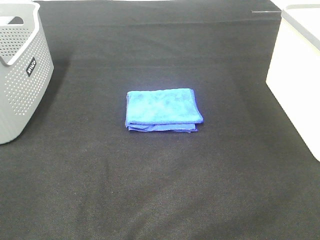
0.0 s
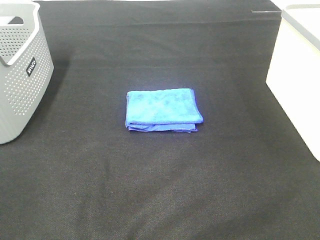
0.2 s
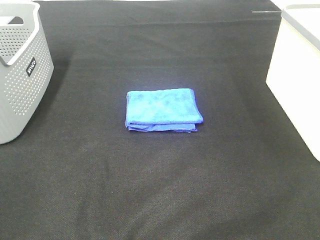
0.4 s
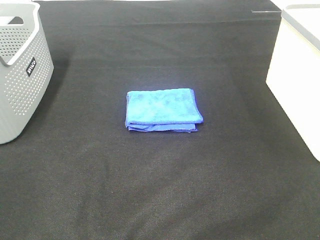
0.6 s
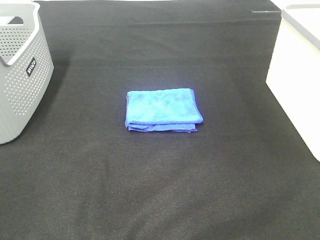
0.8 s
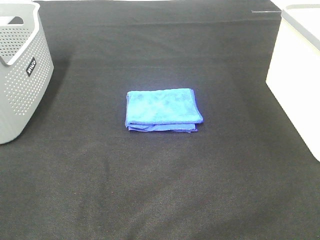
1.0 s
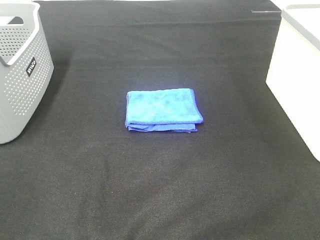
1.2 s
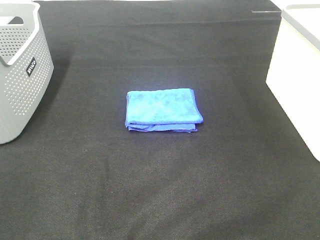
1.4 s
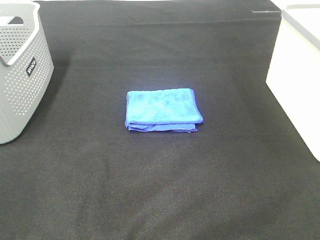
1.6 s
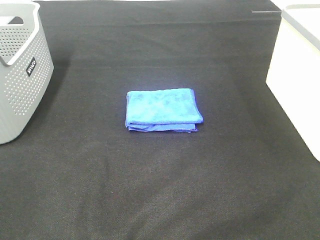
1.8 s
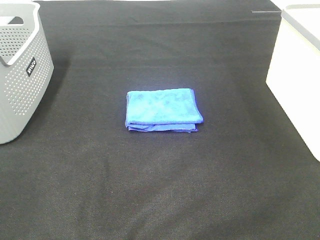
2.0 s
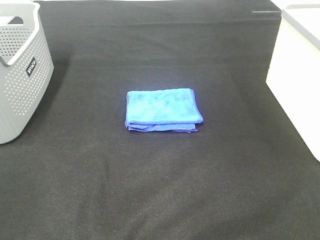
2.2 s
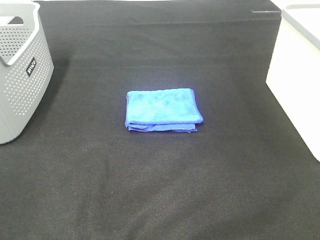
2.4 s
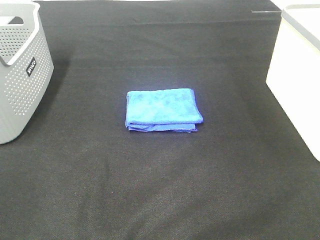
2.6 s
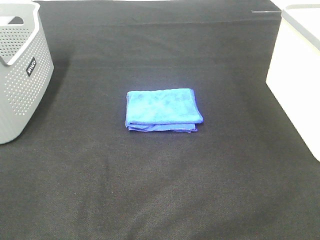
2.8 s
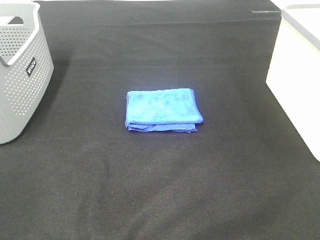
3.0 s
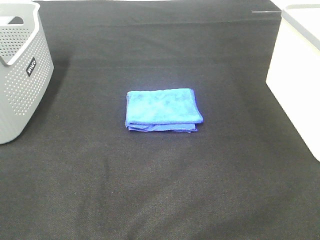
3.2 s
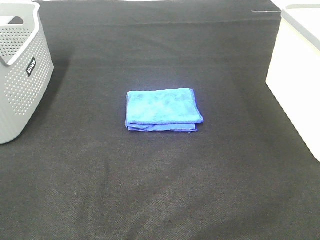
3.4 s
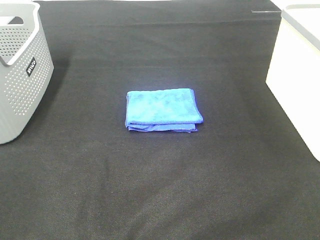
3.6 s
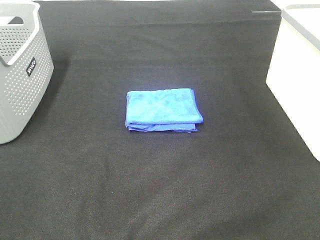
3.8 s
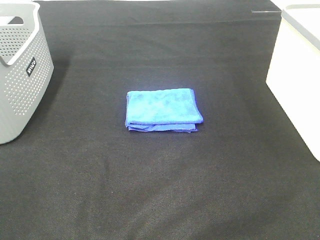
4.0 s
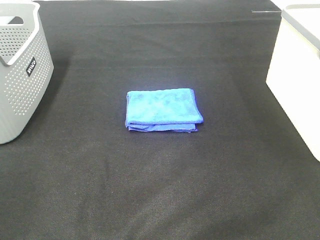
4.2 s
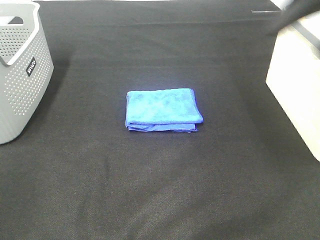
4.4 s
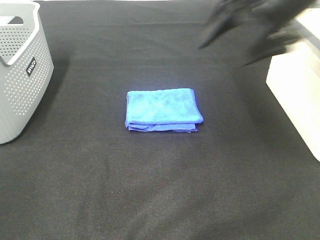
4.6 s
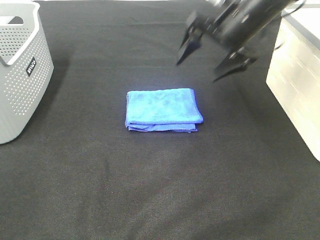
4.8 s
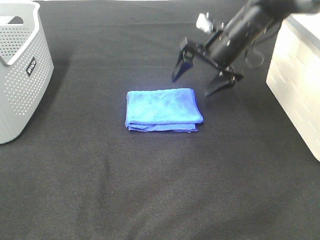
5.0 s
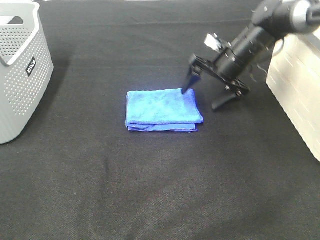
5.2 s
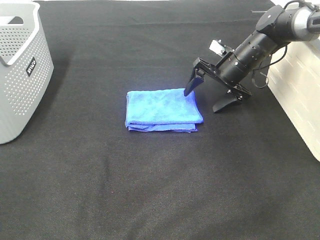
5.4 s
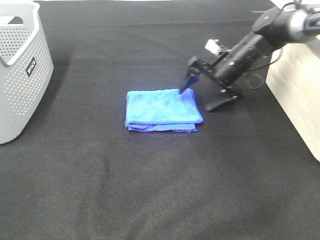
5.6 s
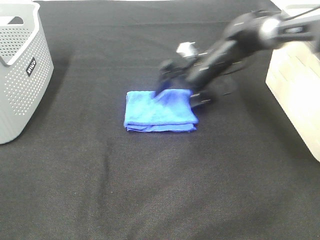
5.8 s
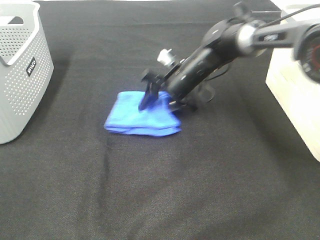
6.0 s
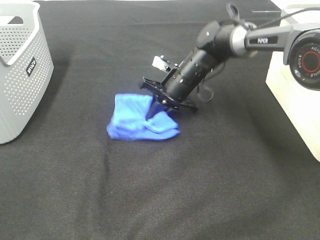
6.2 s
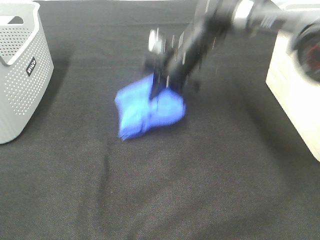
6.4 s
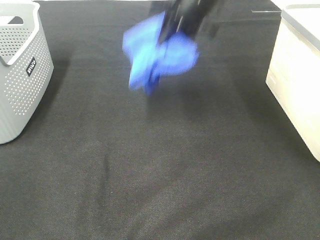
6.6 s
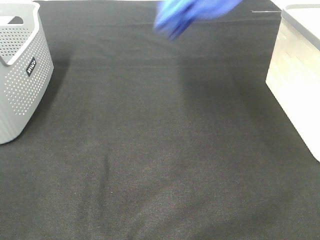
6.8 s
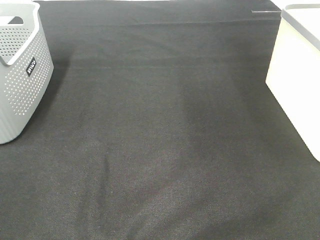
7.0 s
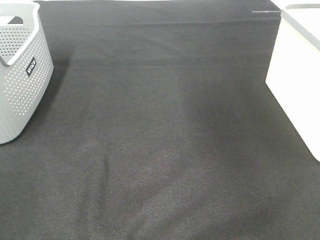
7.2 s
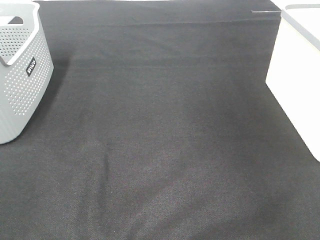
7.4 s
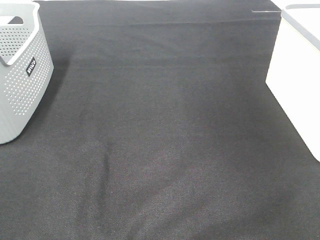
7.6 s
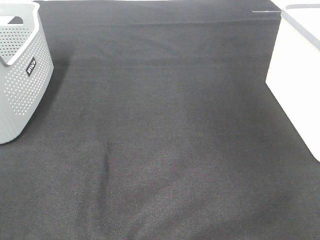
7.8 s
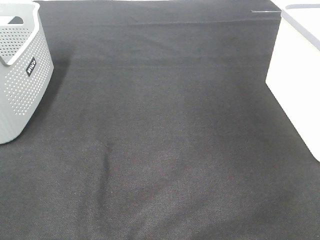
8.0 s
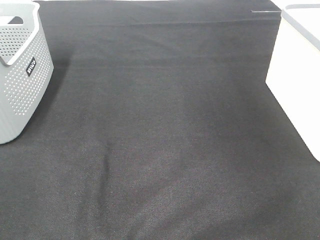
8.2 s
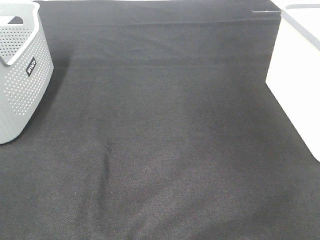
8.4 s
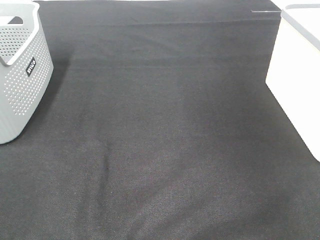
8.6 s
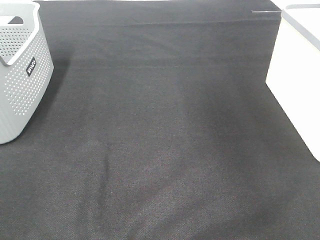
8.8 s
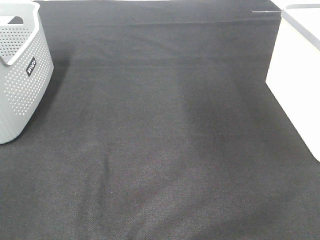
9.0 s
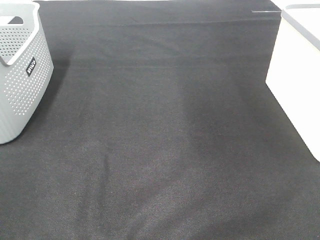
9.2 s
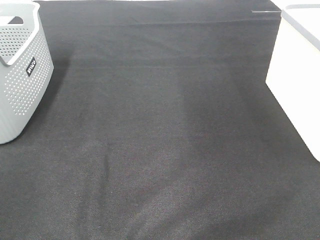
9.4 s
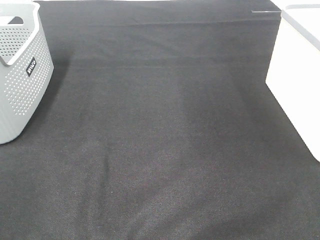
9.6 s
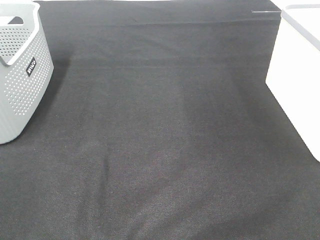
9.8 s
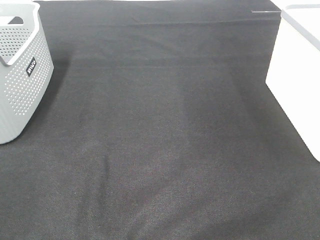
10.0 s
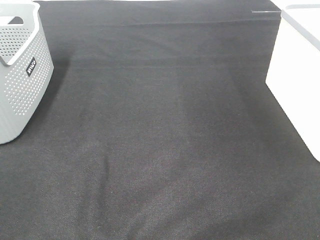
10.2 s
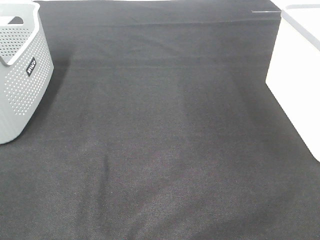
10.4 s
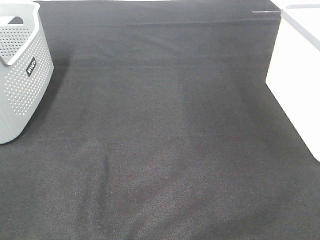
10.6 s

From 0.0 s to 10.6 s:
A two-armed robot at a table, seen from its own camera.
Step, from 0.0 s to 6.0 s: Right hand: grab the folded blue towel.
Step, from 6.2 s to 8.2 s: Right hand: place the blue towel in right basket.
From 0.0 s to 3.0 s: Neither gripper changes place.
From 3.0 s to 4.6 s: The right gripper goes roughly 35 cm forward.
From 4.6 s to 6.0 s: The right gripper is displaced downward, to the left and forward by some 25 cm, and closes its fingers.
From 6.0 s to 7.6 s: The right gripper shifts approximately 50 cm to the right and upward, and closes.

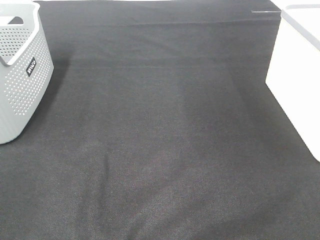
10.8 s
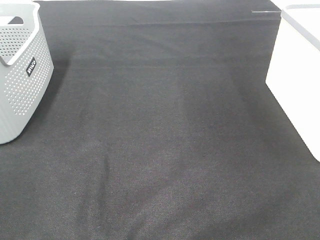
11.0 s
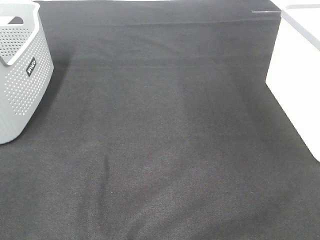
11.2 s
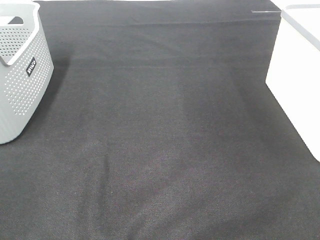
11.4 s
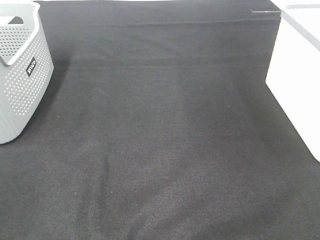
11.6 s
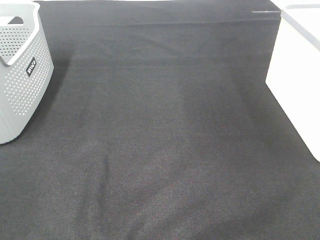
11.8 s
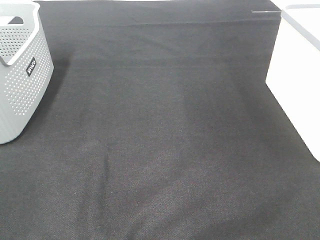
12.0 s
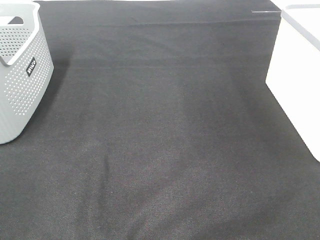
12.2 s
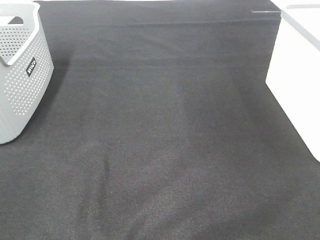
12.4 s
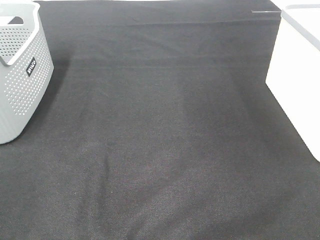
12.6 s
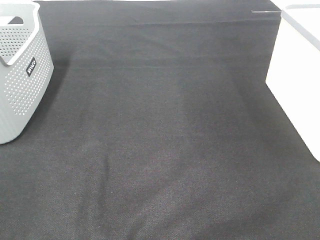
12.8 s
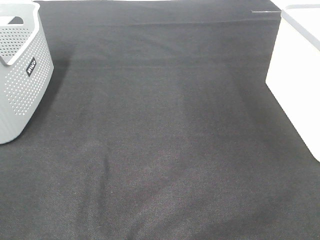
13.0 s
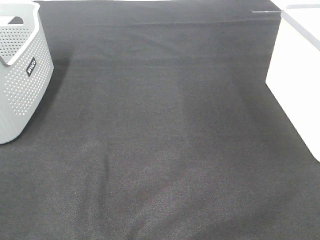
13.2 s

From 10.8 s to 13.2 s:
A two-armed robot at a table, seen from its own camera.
From 12.0 s to 13.2 s: Both grippers stay about where they are.

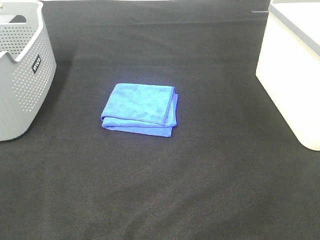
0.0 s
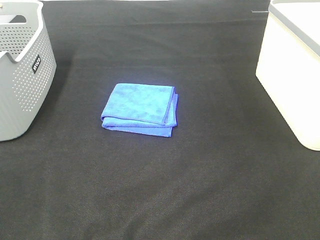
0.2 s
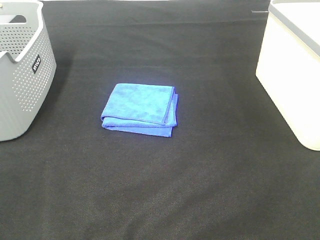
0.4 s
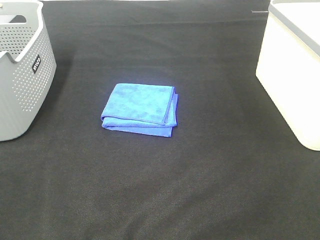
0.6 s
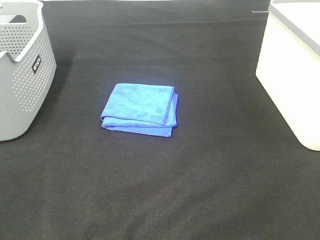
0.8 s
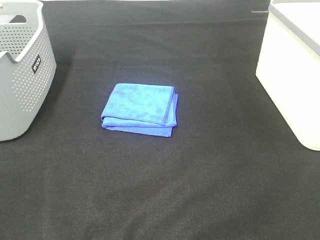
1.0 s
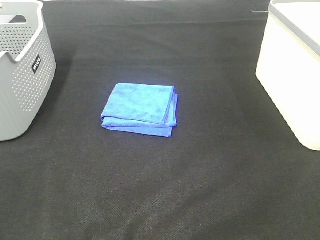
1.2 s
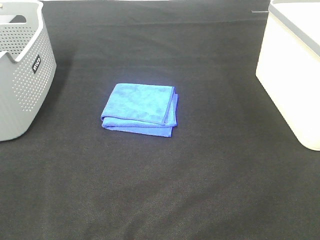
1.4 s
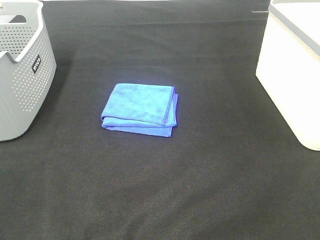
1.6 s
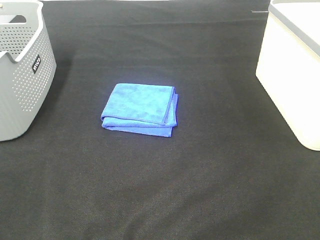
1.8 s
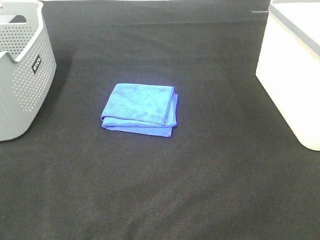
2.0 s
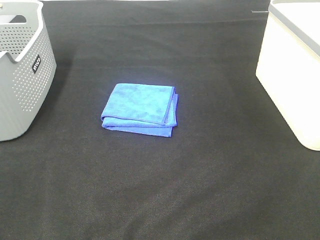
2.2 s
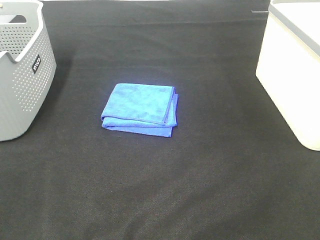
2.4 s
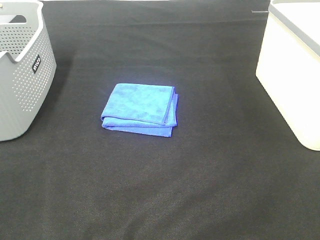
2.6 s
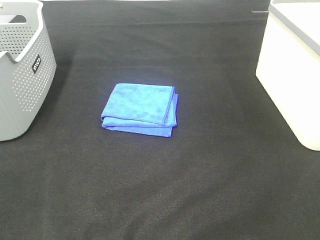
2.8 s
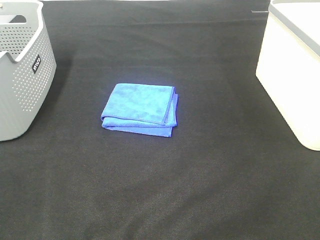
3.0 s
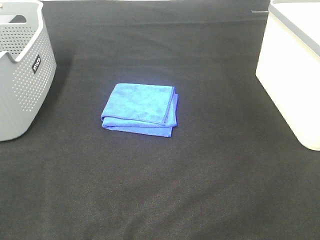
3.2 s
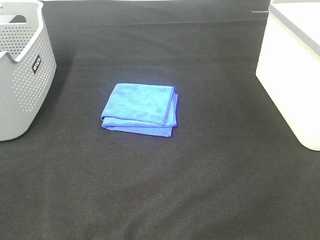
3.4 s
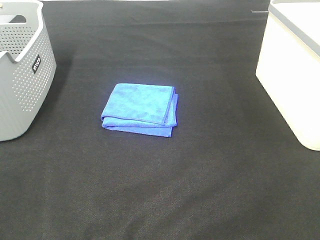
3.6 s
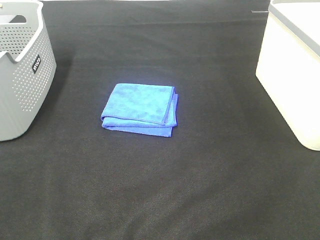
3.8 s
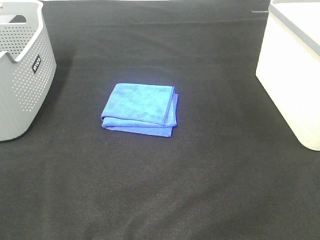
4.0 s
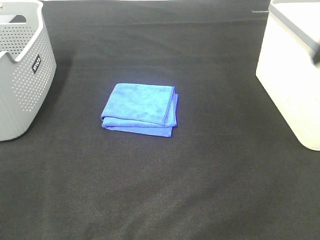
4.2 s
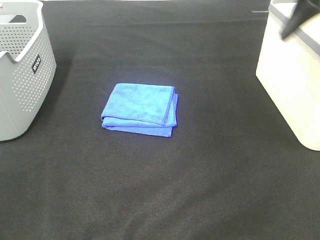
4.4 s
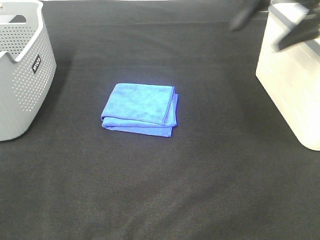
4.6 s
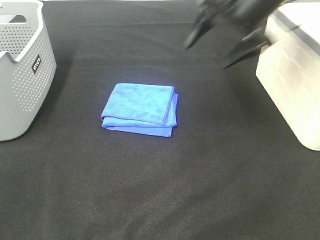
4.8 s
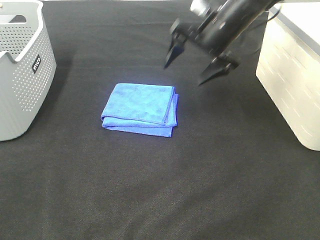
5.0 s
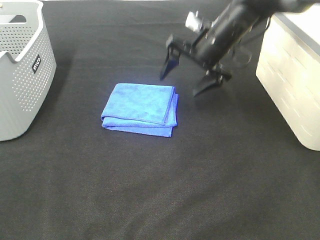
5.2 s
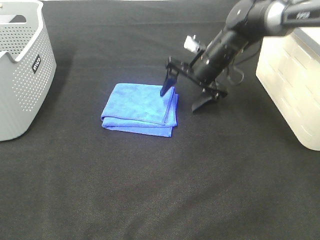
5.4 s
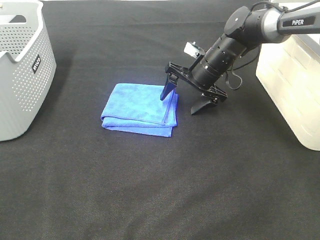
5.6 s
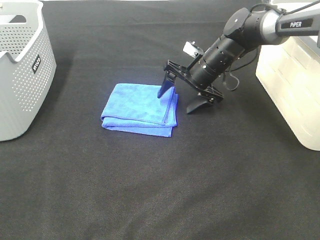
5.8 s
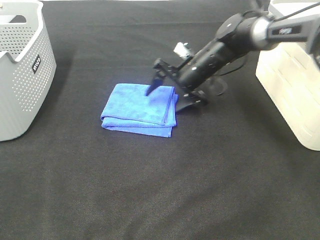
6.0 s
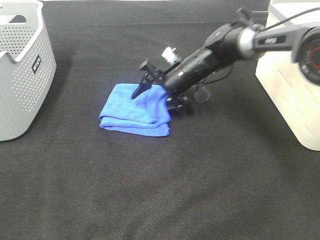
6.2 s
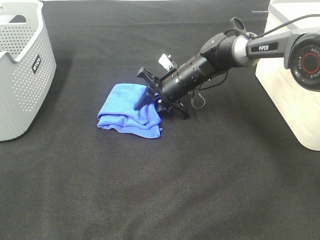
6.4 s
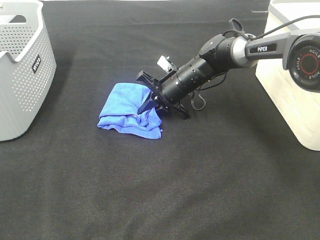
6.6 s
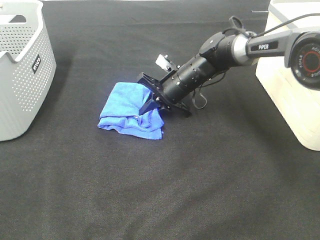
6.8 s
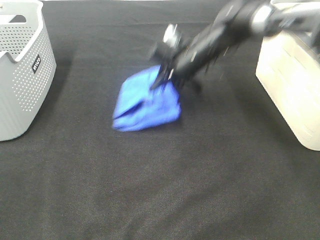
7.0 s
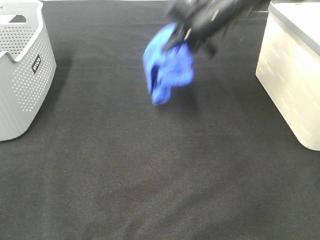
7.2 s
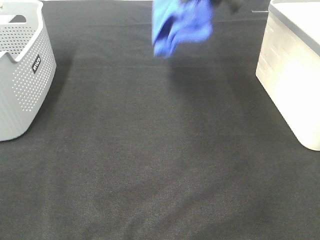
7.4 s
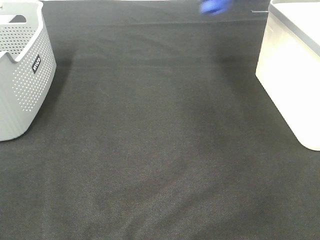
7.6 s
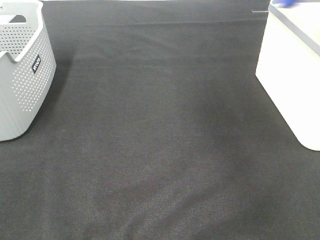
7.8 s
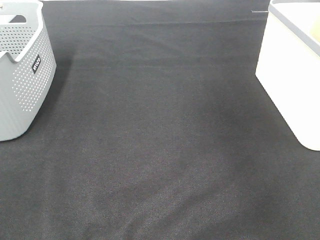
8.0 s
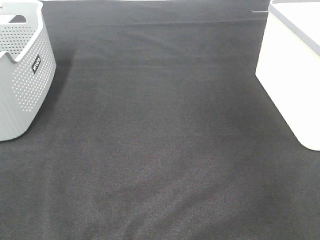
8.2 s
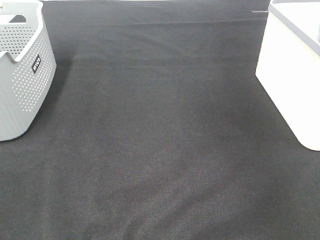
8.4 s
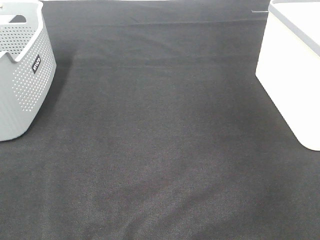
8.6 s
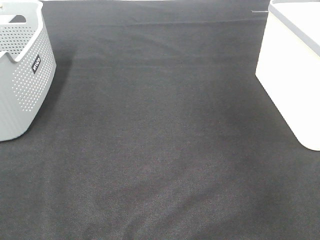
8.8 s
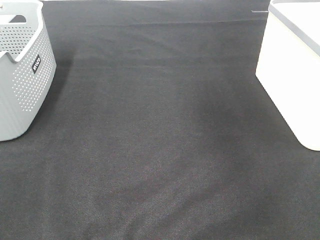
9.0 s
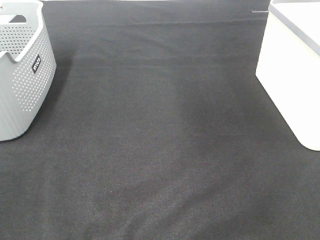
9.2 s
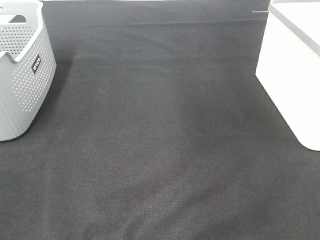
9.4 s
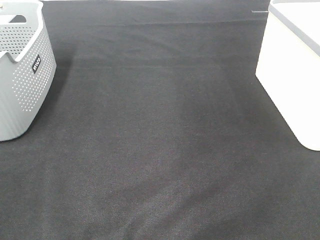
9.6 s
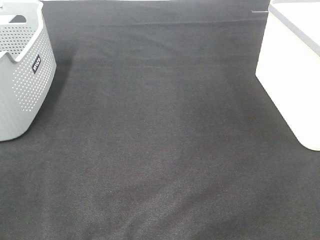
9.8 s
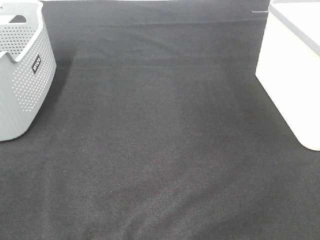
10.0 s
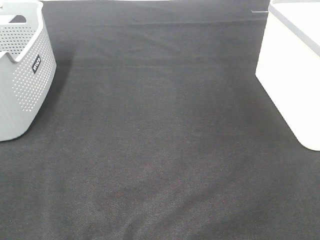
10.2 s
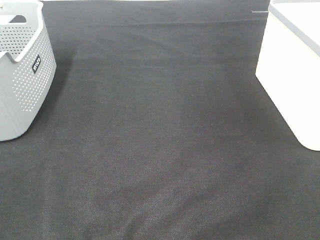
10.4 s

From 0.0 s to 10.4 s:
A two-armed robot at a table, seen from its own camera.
Step, from 0.0 s to 6.6 s: Right hand: grab the folded blue towel.
Step, from 6.8 s to 8.4 s: Right hand: place the blue towel in right basket.
From 0.0 s to 3.0 s: Both grippers stay about where they are.
From 3.0 s to 4.4 s: The right gripper heads forward, covering some 35 cm.
From 4.4 s to 6.0 s: The right gripper travels downward, to the left and forward by some 35 cm.
From 6.0 s to 7.4 s: The right gripper heads upward, covering some 25 cm, and closes its fingers.
From 7.4 s to 9.0 s: The right gripper moves to the right, about 15 cm, and opens its fingers.
